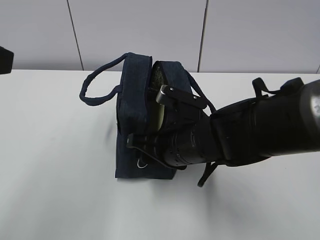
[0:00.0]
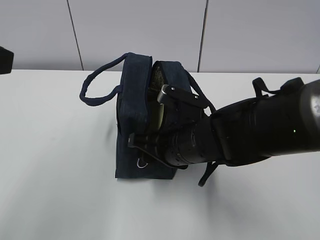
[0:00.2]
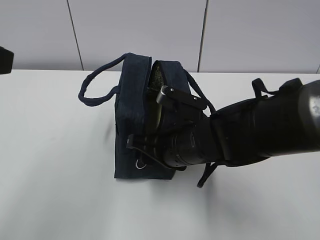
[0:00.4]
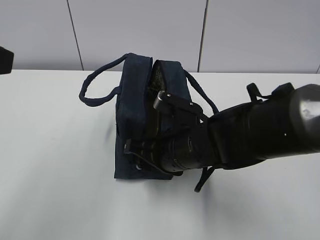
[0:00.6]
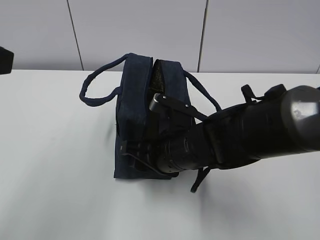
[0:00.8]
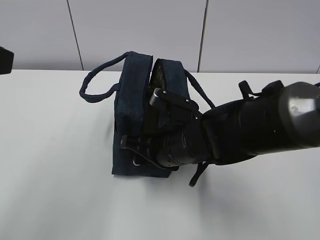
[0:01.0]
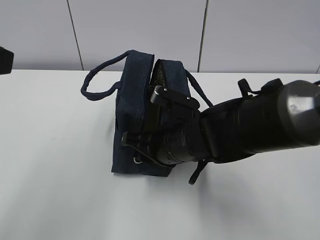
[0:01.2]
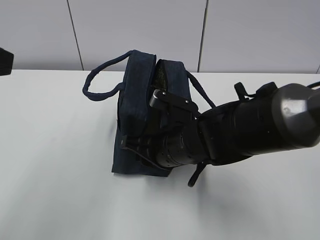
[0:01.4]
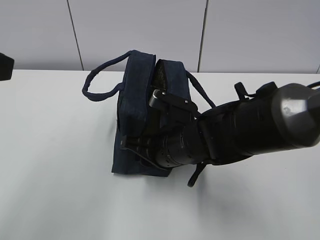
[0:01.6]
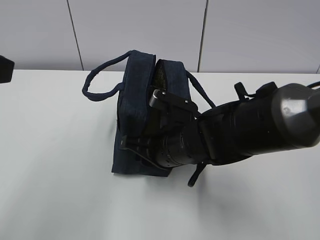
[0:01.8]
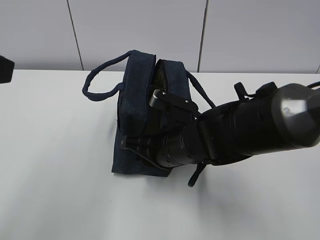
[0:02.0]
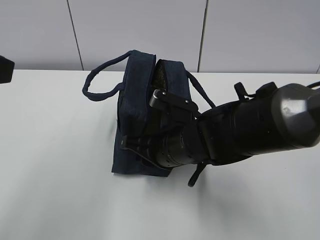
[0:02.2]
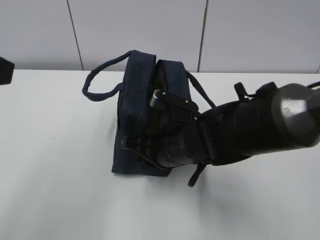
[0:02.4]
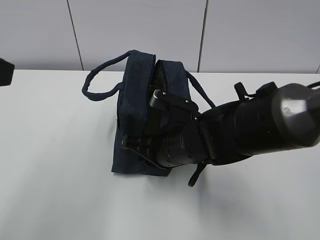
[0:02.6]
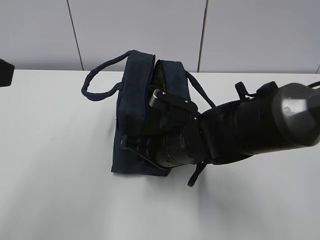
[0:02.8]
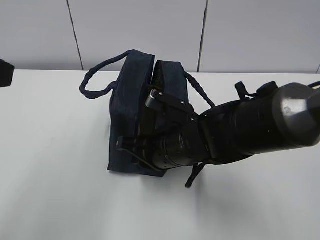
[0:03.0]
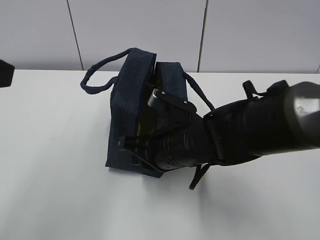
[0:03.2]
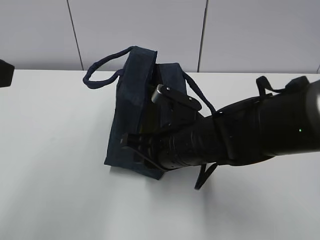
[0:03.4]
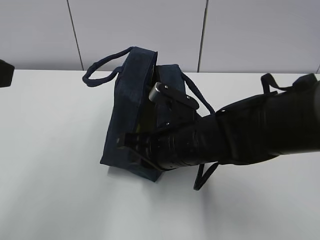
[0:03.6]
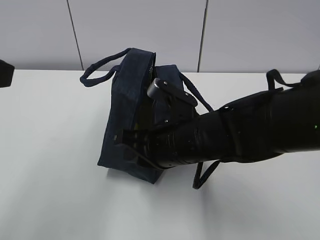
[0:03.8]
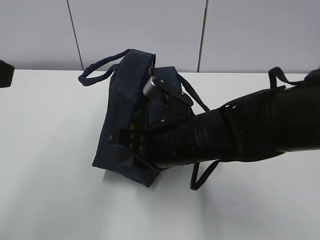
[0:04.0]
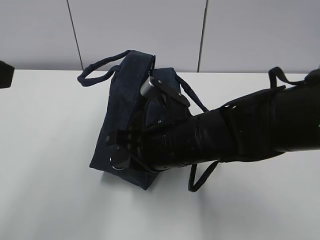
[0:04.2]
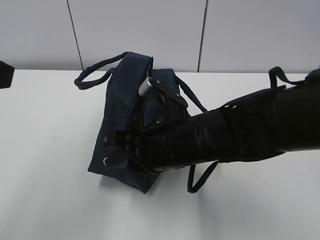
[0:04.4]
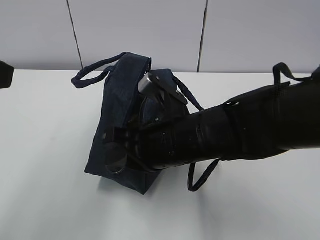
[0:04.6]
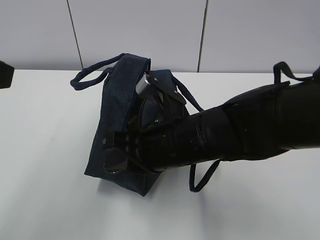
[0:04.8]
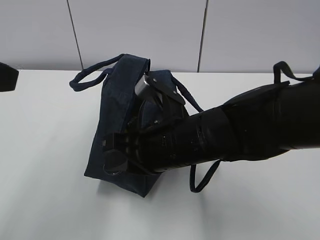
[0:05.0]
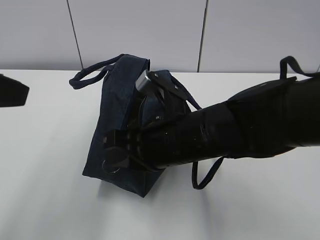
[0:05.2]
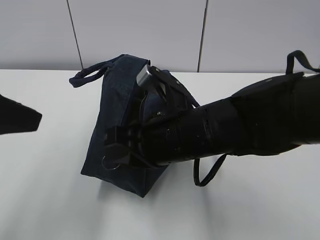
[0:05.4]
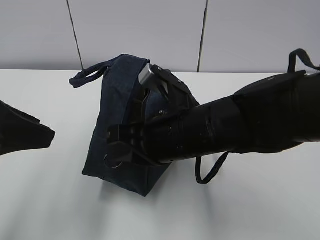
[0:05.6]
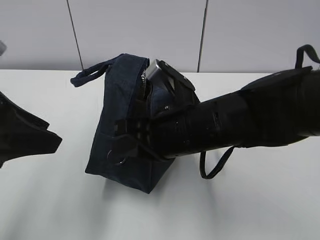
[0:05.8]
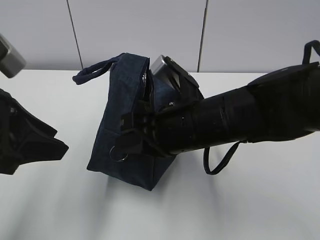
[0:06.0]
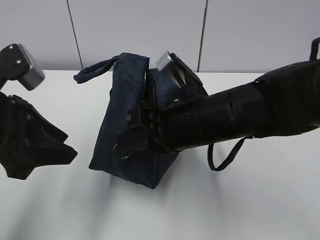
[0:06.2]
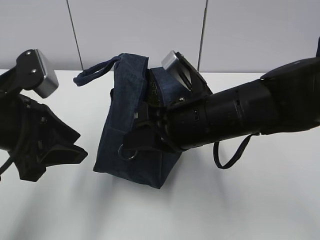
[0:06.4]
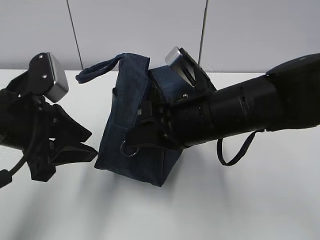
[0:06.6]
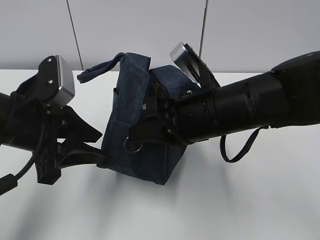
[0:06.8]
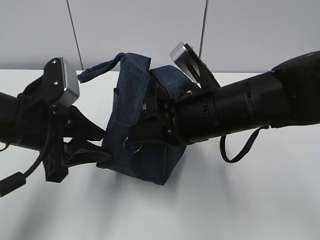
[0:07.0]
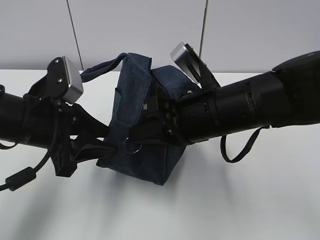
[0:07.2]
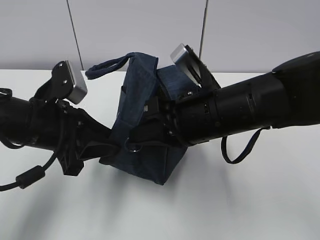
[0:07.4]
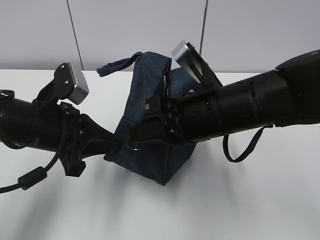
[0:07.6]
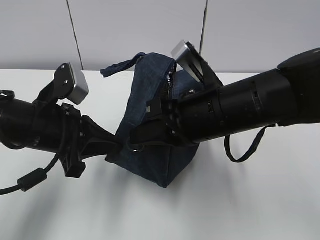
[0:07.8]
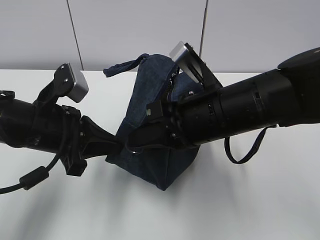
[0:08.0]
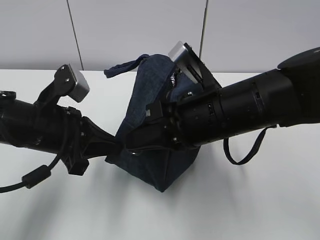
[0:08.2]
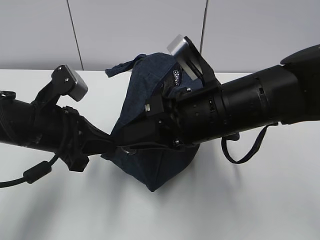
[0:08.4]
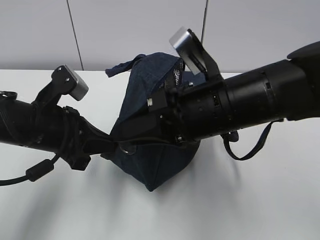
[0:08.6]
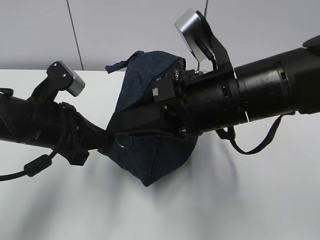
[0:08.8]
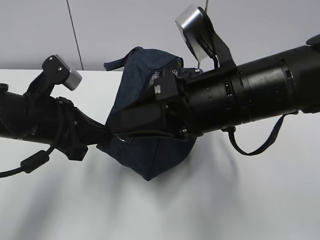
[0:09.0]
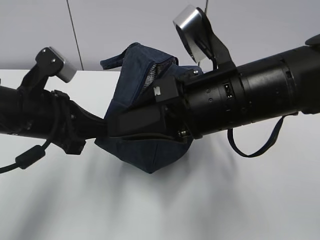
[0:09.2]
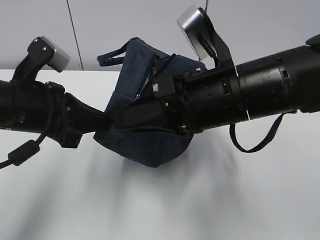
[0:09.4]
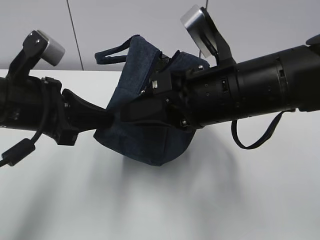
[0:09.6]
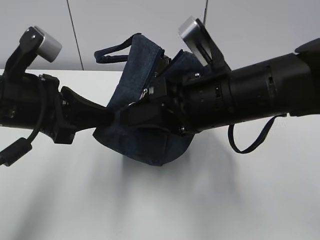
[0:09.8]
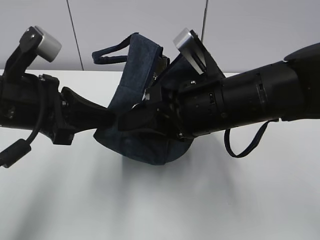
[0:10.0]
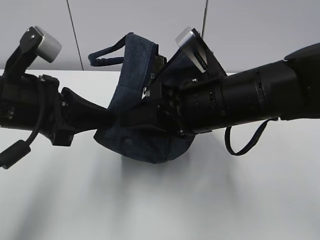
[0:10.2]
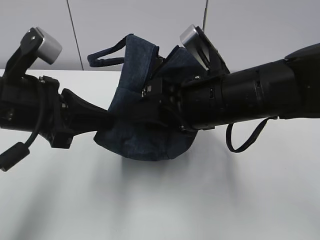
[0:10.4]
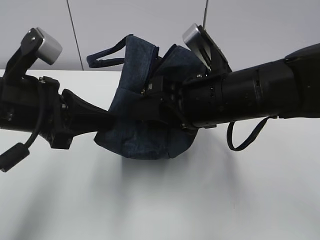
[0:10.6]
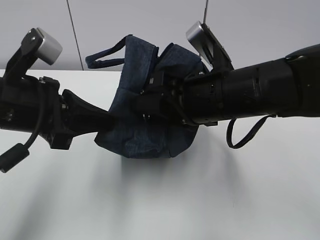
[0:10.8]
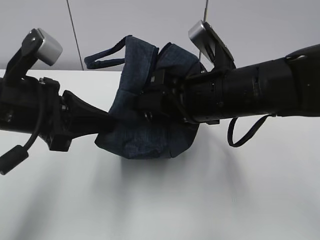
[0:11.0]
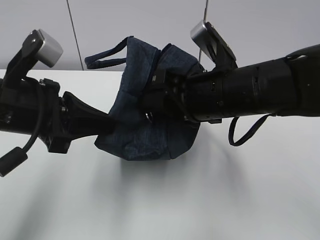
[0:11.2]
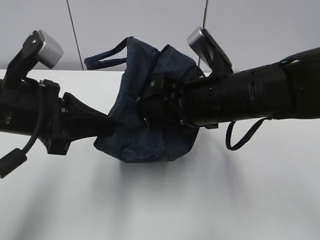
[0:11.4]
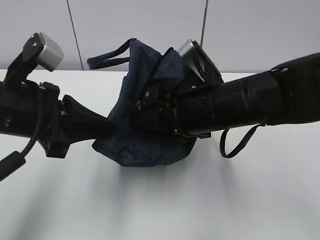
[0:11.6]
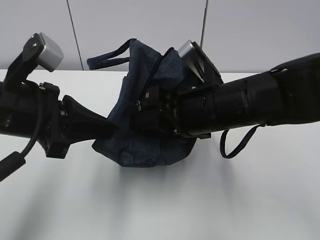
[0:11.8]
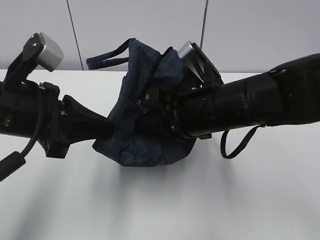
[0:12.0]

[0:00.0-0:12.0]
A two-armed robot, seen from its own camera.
Step, 0:00.0 to 0:06.8: Grab the lunch bag with your left hand.
Step, 0:07.0 to 0:11.2: Pull the zipper with your right hand.
0:00.0 to 0:01.6: The right gripper closes its fingers.
0:01.6 to 0:03.0: The two grippers keep their place.
0:03.0 to 0:04.4: The right gripper shifts by approximately 5 cm.
0:04.4 to 0:06.0: The left gripper shifts approximately 10 cm downward.
0:06.0 to 0:07.6: The left gripper travels downward and forward by about 10 cm, and closes its fingers.
0:07.6 to 0:09.0: The right gripper moves roughly 5 cm, and opens.
0:09.0 to 0:10.4: The left gripper moves approximately 5 cm.
0:10.4 to 0:12.0: The right gripper closes up.

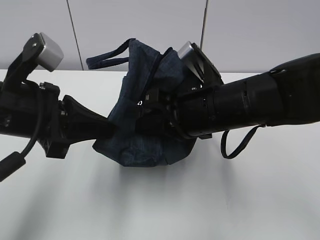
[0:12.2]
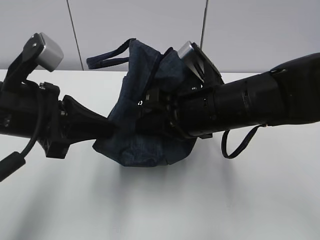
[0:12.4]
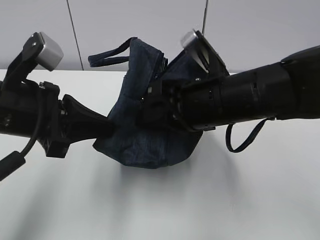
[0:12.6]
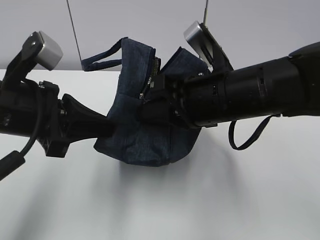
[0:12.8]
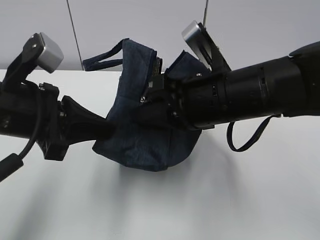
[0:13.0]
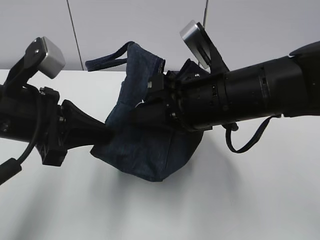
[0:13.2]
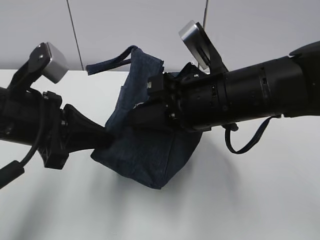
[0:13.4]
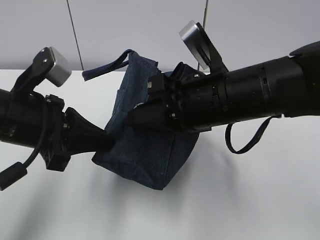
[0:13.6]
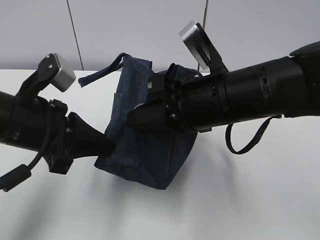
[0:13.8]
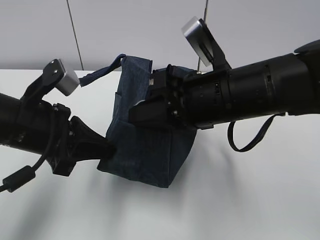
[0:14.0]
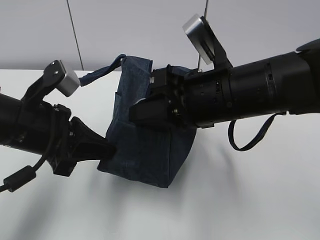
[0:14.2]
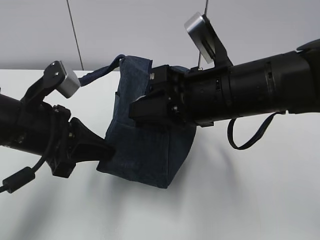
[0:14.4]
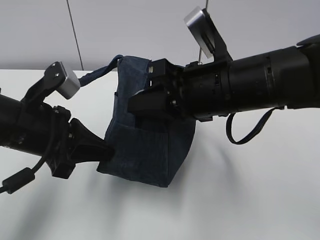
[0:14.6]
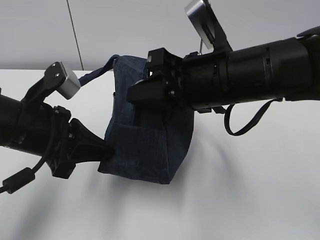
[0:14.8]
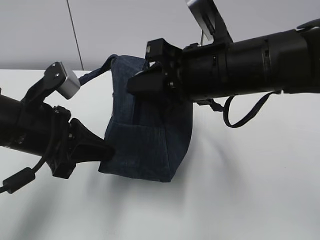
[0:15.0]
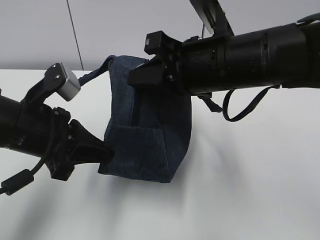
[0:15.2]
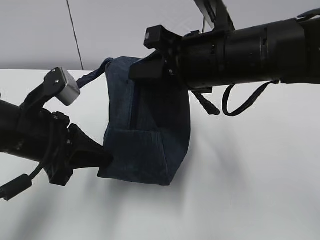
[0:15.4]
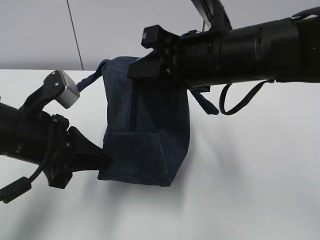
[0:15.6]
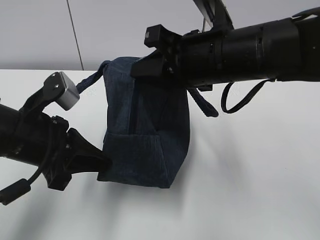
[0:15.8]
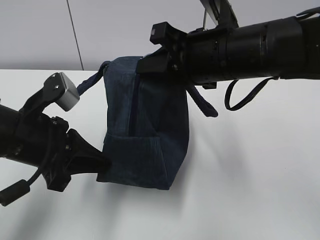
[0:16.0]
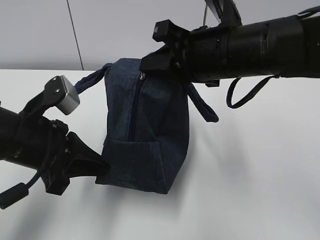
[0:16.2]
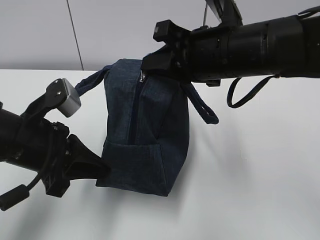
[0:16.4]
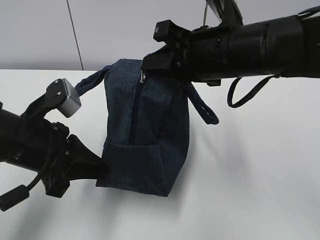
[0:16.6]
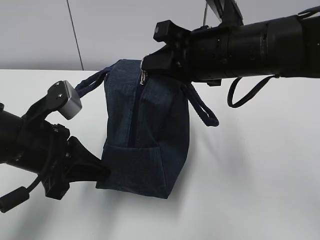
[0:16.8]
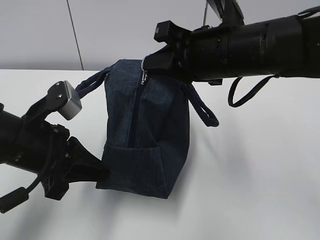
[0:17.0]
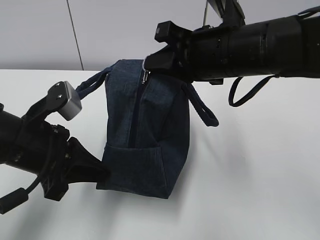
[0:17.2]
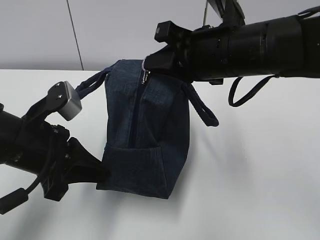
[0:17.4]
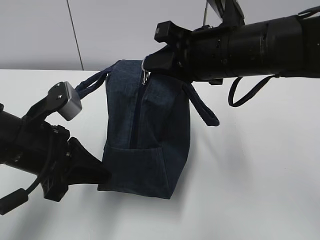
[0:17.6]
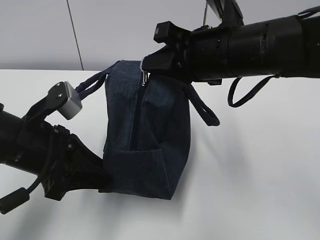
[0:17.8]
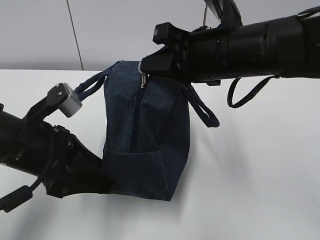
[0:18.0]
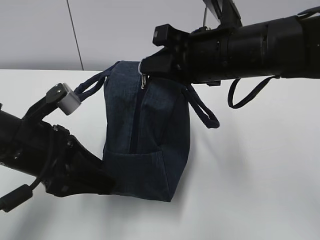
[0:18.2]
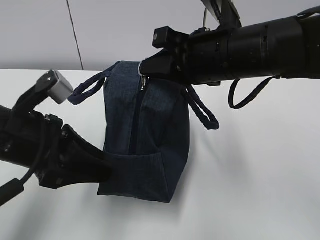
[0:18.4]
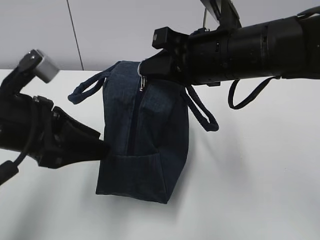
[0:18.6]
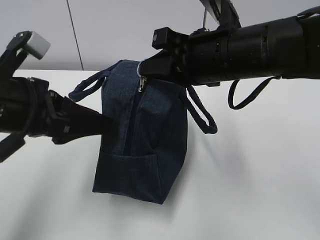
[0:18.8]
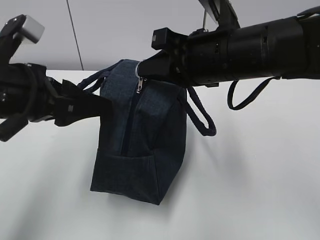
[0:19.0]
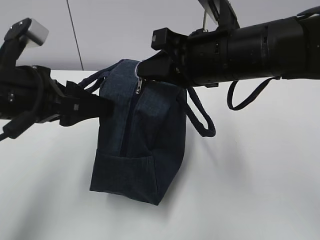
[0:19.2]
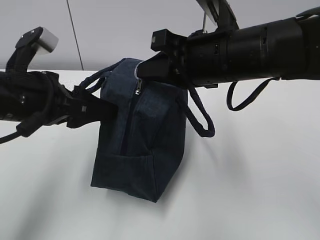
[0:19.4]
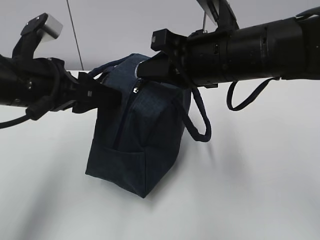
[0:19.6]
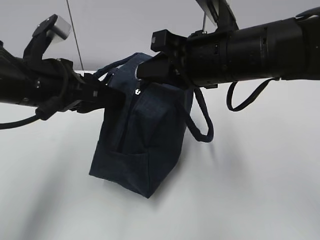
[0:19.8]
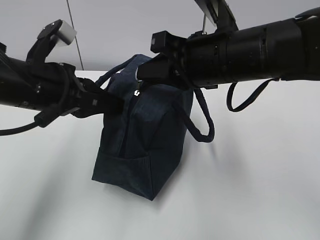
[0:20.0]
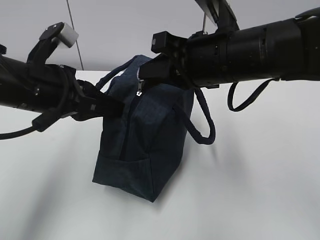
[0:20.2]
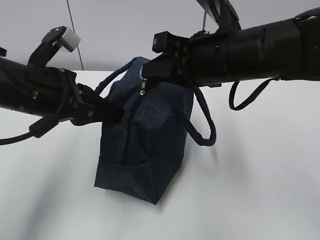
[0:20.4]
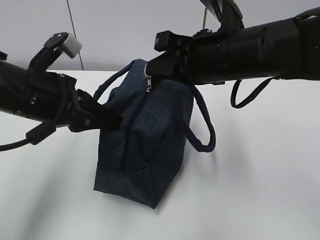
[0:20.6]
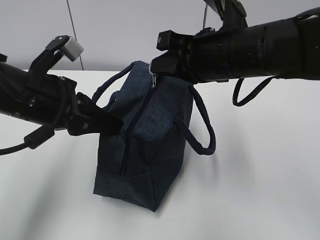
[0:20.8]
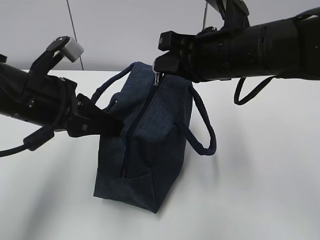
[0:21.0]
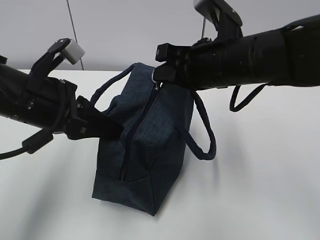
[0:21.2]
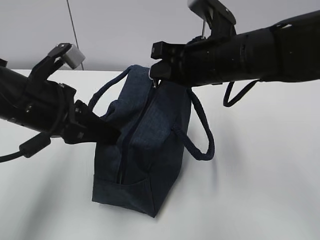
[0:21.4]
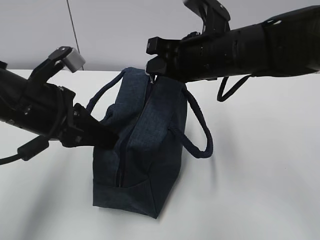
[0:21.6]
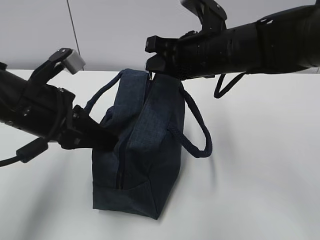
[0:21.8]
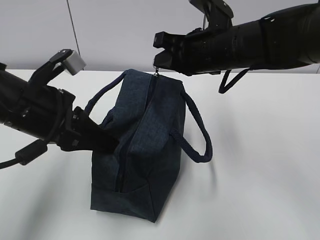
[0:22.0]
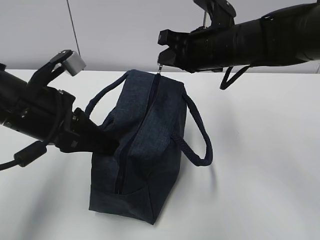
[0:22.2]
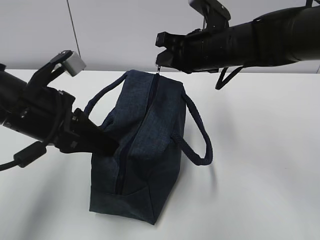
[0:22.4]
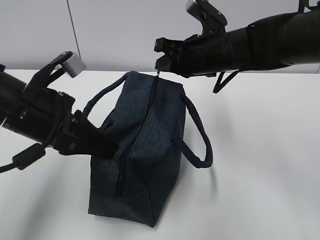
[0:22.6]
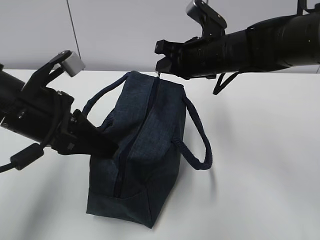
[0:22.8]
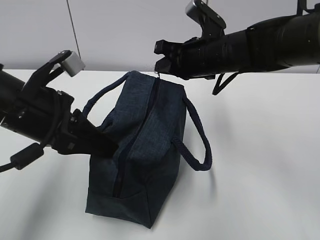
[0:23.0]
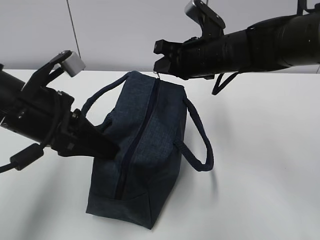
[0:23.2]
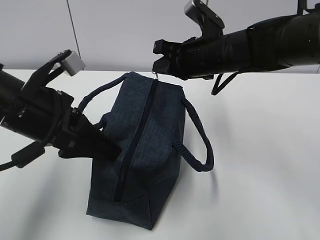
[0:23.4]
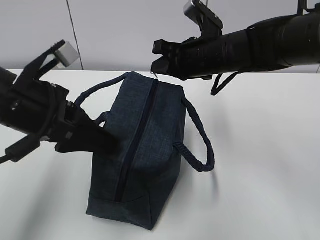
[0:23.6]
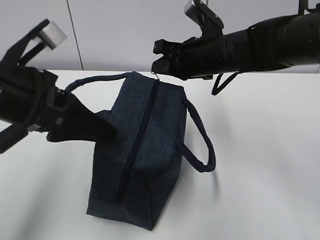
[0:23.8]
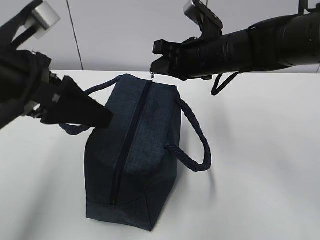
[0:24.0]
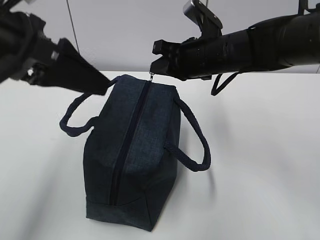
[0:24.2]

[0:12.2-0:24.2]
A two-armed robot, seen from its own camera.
Step, 0:12.2 to 0:13.4: Grab the lunch bag with your left hand.
0:16.6 to 0:18.2: The left gripper opens its fingers.
0:18.2 to 0:19.8: The left gripper moves forward, roughly 5 cm, and closes.
0:21.2 to 0:22.6: The right gripper heads forward, covering roughly 10 cm.
0:22.6 to 0:24.2: The left gripper is displaced upward by approximately 10 cm, and opens.
